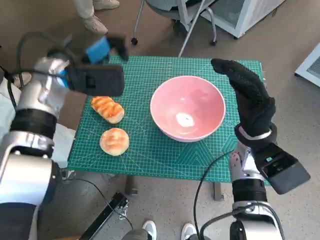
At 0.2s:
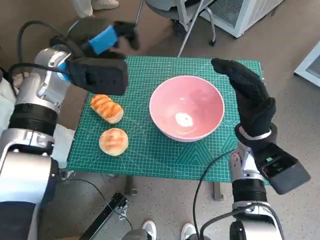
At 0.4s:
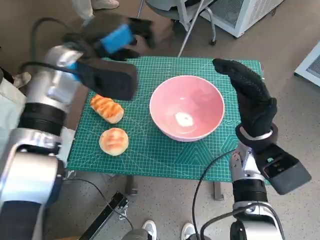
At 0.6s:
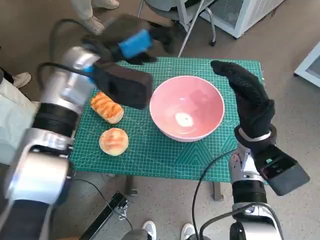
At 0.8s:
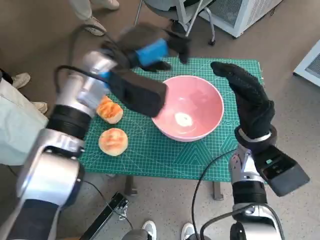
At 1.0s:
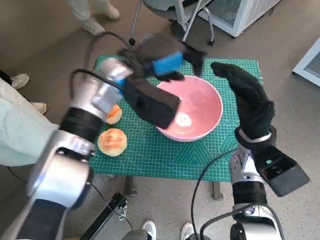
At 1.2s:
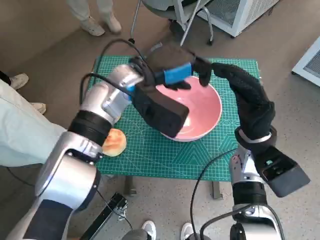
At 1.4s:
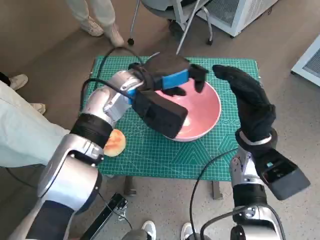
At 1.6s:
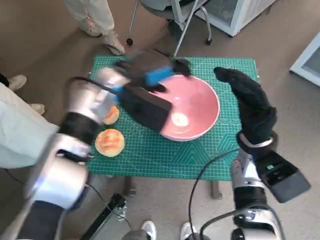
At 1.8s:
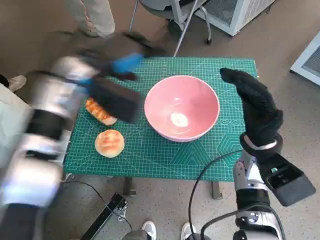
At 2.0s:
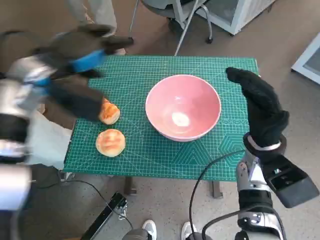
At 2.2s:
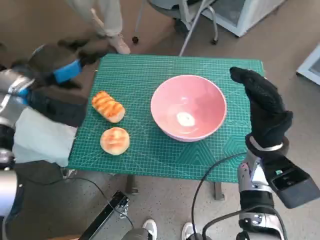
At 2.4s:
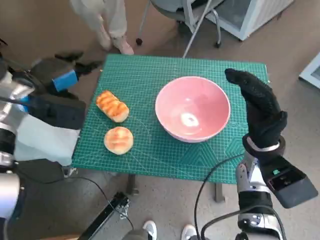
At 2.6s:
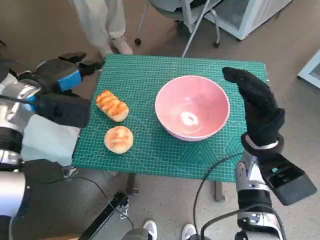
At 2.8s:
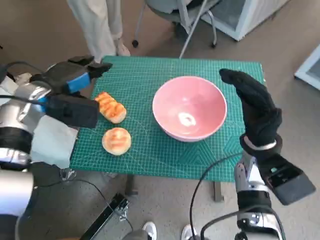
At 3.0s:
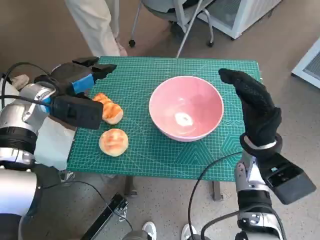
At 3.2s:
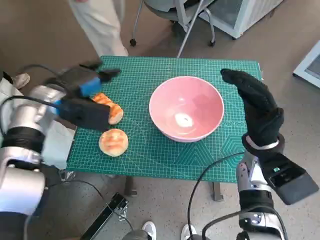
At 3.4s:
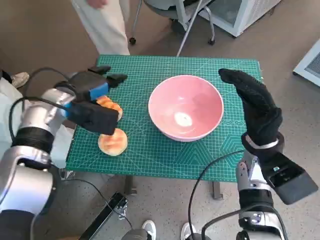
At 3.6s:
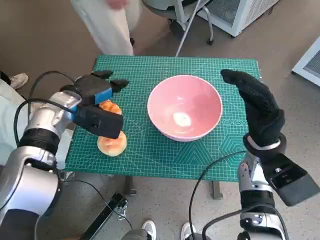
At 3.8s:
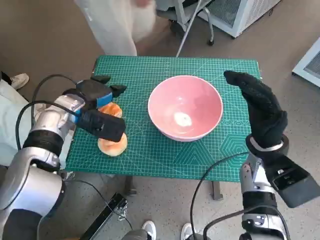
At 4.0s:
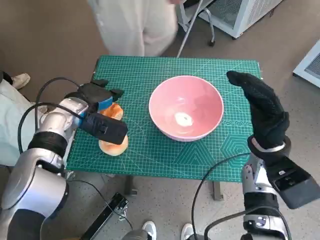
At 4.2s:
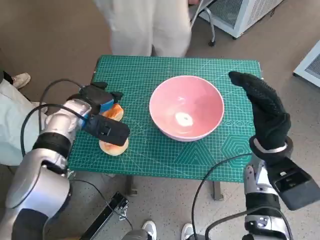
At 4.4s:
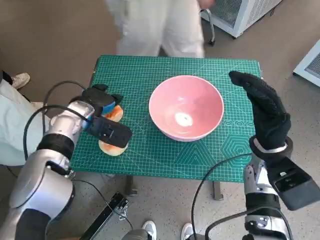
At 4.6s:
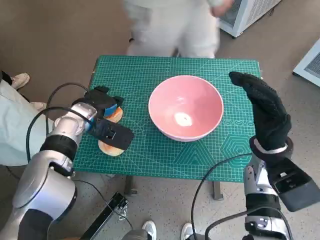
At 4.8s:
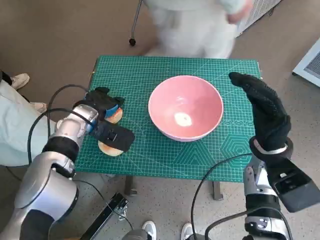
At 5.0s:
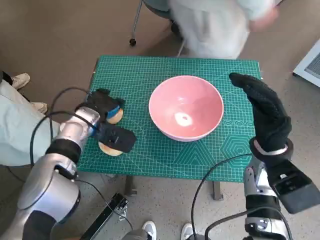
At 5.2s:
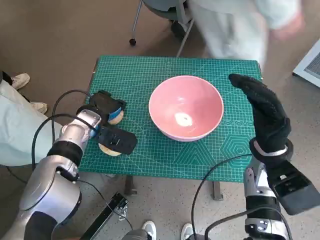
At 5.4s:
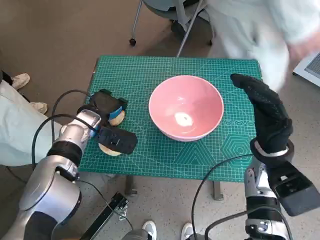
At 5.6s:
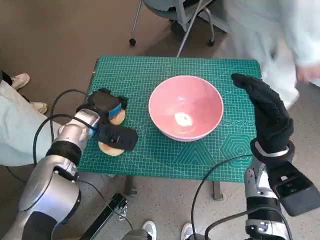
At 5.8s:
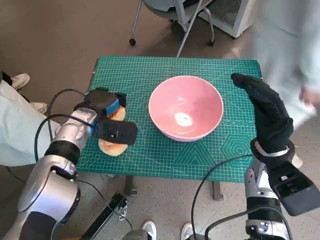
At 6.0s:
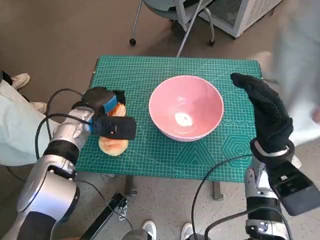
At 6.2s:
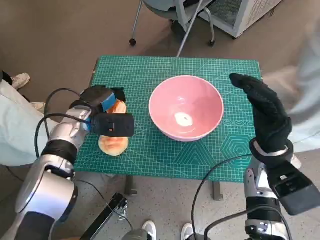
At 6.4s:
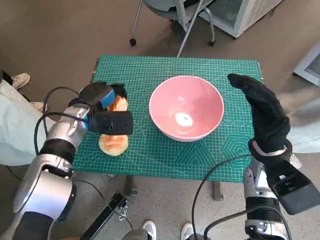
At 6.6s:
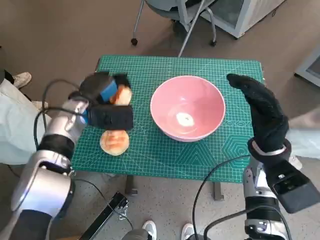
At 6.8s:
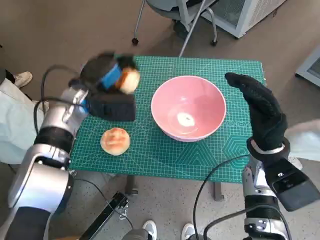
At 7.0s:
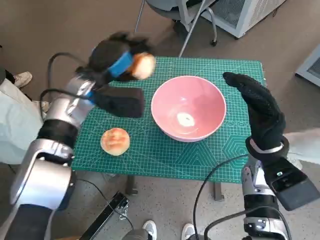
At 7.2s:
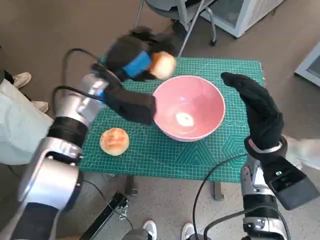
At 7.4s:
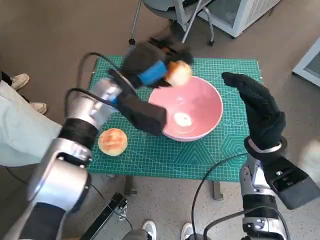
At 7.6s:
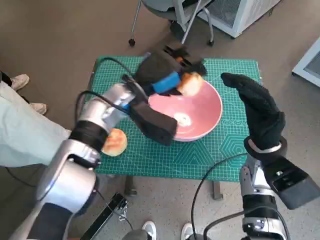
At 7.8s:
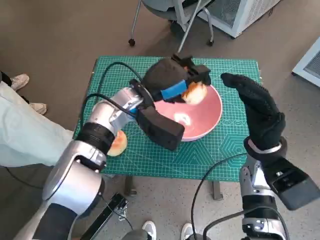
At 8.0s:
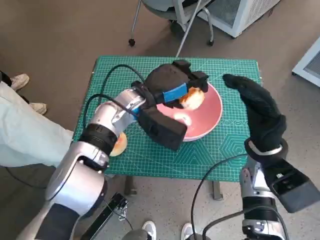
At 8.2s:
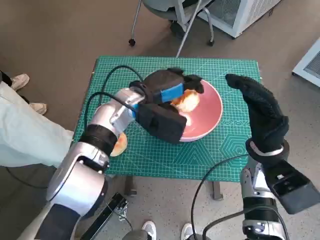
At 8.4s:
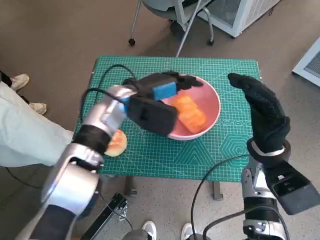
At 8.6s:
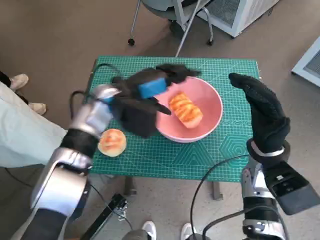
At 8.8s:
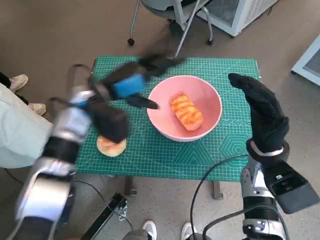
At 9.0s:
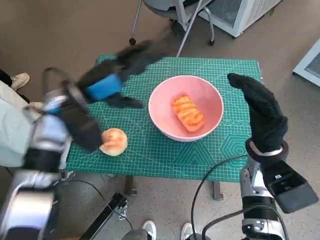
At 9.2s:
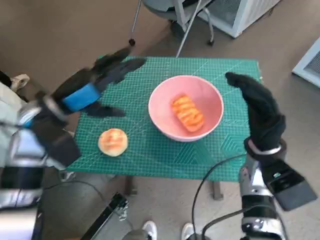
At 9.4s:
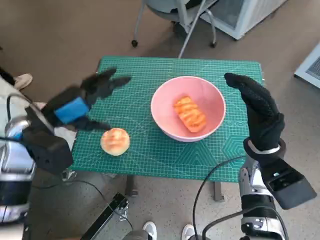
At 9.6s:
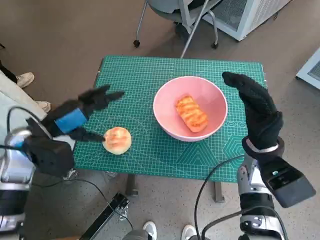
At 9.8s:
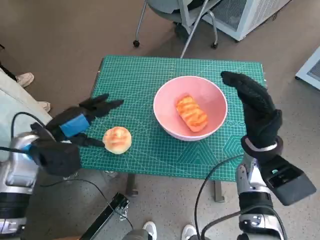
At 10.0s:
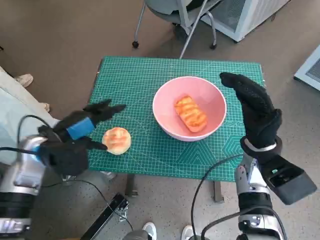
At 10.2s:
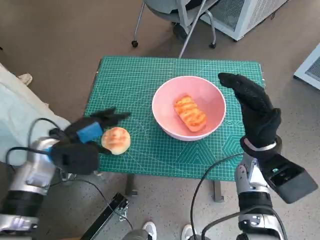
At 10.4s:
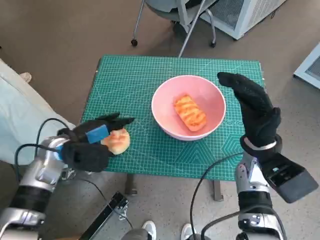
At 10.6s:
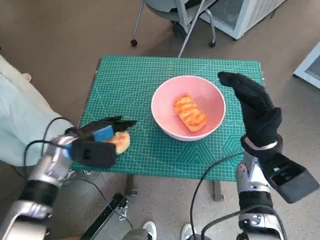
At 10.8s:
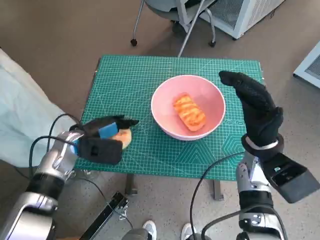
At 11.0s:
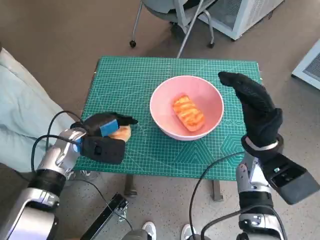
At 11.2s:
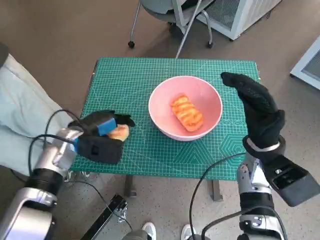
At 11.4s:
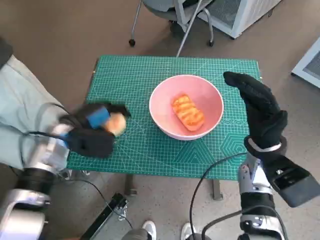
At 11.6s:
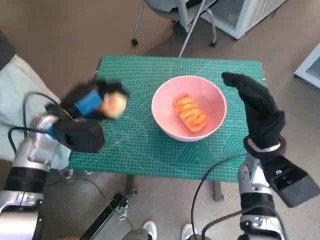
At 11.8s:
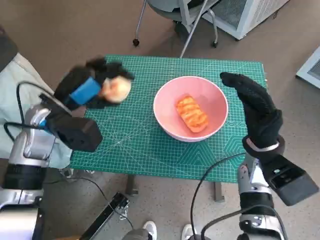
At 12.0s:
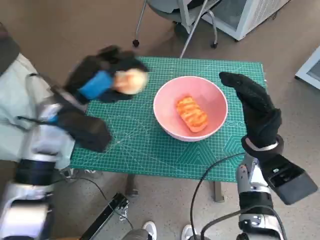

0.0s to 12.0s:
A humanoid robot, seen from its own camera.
Task of the whole recording: Push the bowl to the center of the table and put the bread into the bowl.
Step, 0.0s to 5.2s: Grasp the long bread with left hand.
Step, 5.4s to 8.4s: Place the long bread in pink bowl with left hand.
Step, 8.6s to 10.8s: Grasp the round bread with left hand.
0.0s to 1.6s: The left hand travels to the right by about 10 cm.
1.6s to 3.0s: The left hand shifts roughly 15 cm to the left.
3.0s to 4.4s: The left hand travels downward by approximately 5 cm.
6.0s to 7.6s: The left hand moves to the right and upward, about 15 cm.
7.6s to 9.0s: The left hand travels to the left by approximately 10 cm.
9.0s to 10.4s: The left hand travels downward and to the left by approximately 10 cm.
10.4s to 12.0s: The left hand moves upward, roughly 10 cm.

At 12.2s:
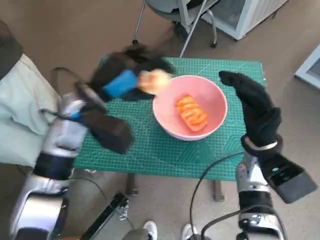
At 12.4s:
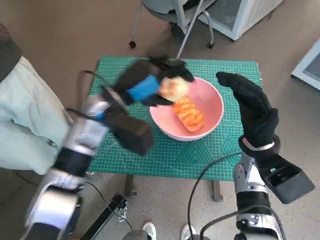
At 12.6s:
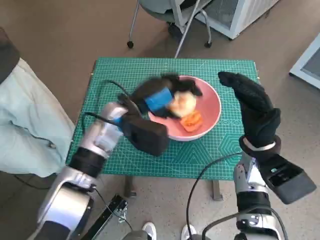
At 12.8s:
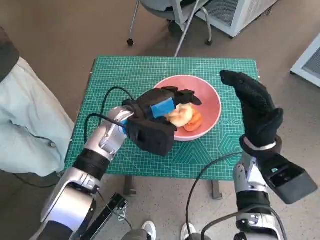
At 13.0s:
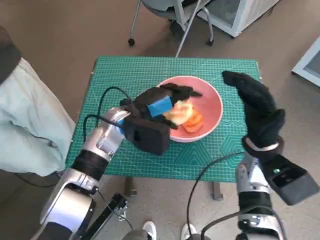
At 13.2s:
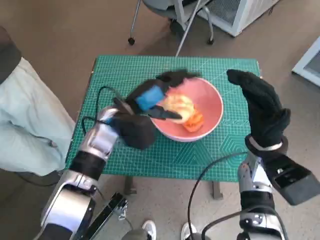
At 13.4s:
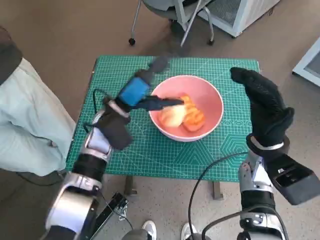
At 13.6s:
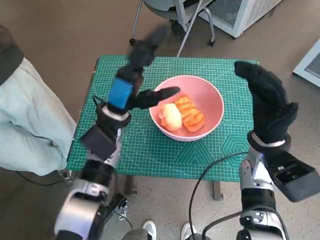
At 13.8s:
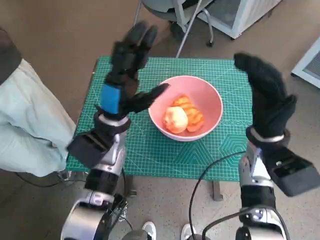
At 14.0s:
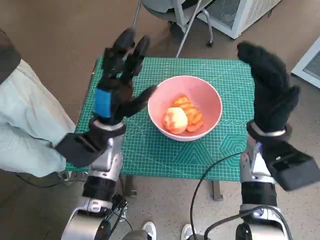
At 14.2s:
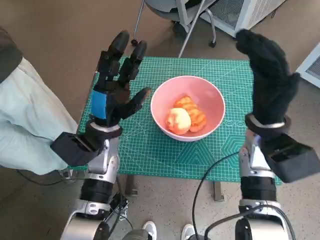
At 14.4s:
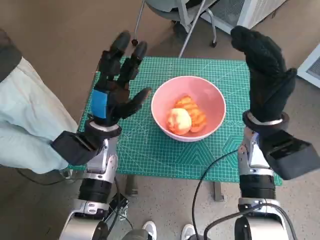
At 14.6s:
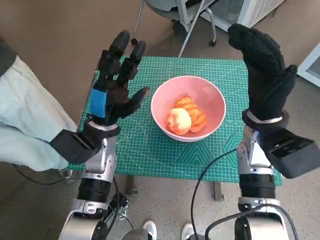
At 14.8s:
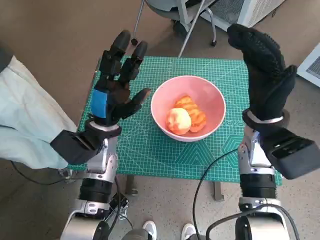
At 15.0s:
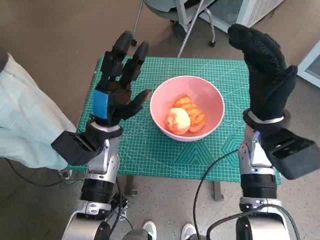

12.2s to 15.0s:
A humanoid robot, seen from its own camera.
Task of the whole recording: Push the bowl to the center of the table and put the bread into the bowl.
12.2s to 13.6s: The left hand travels downward by about 5 cm.
13.6s to 15.0s: The right hand shifts by some 5 cm.

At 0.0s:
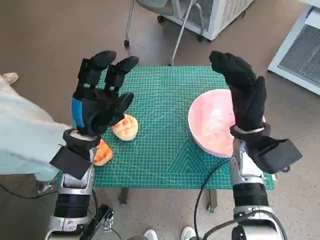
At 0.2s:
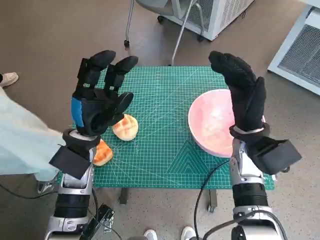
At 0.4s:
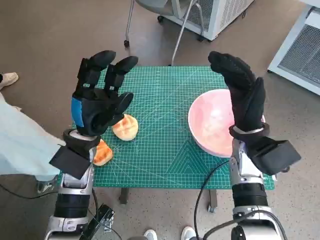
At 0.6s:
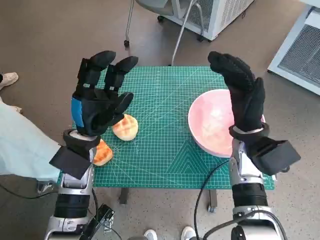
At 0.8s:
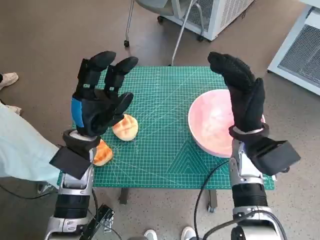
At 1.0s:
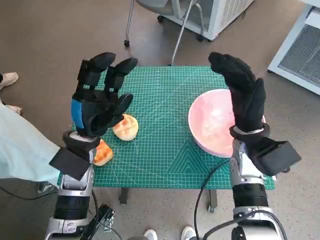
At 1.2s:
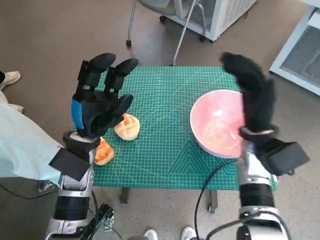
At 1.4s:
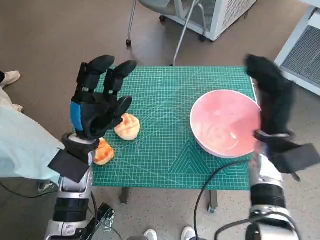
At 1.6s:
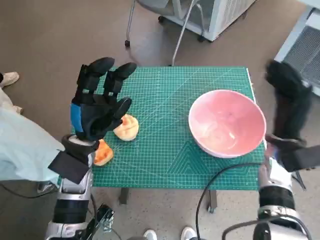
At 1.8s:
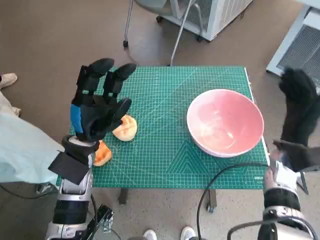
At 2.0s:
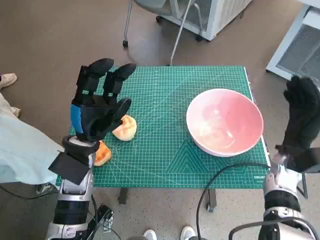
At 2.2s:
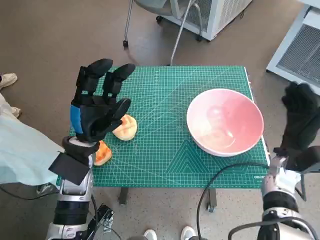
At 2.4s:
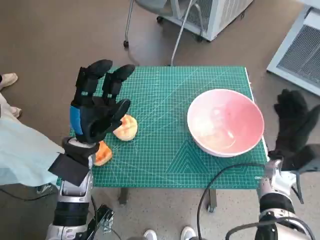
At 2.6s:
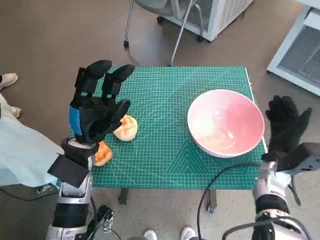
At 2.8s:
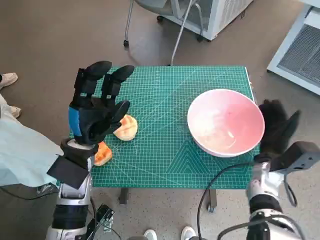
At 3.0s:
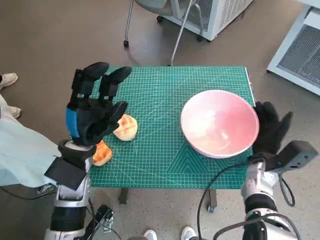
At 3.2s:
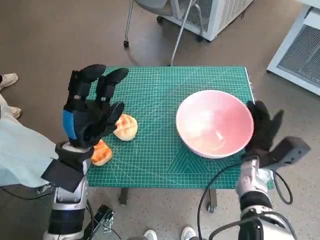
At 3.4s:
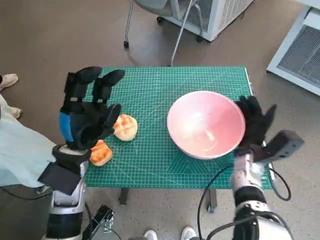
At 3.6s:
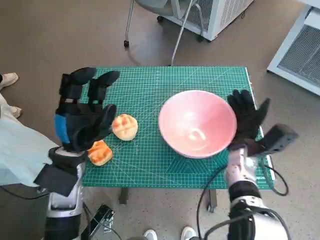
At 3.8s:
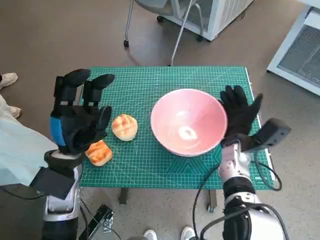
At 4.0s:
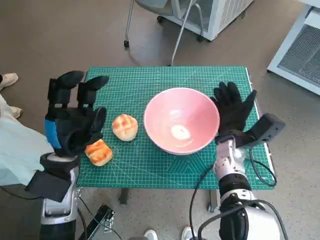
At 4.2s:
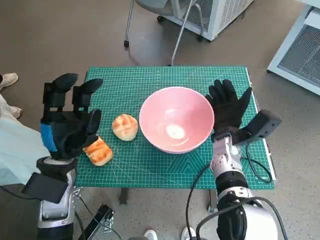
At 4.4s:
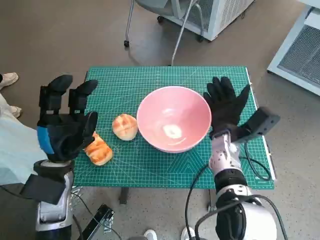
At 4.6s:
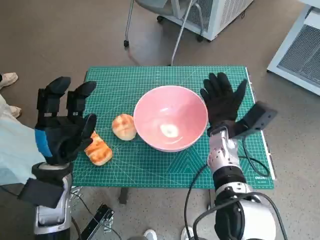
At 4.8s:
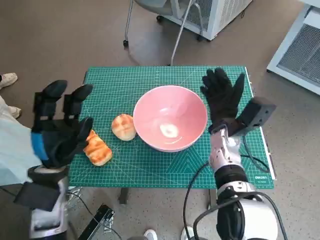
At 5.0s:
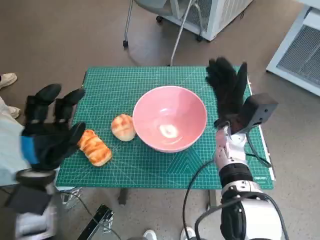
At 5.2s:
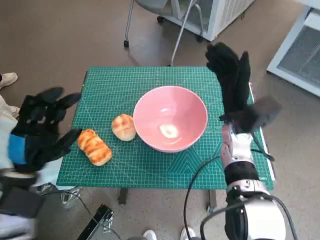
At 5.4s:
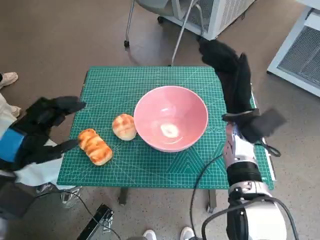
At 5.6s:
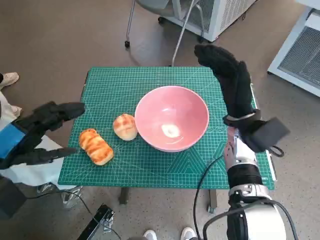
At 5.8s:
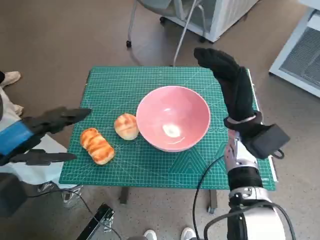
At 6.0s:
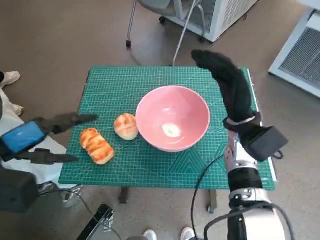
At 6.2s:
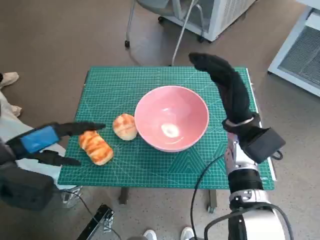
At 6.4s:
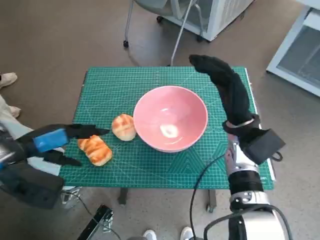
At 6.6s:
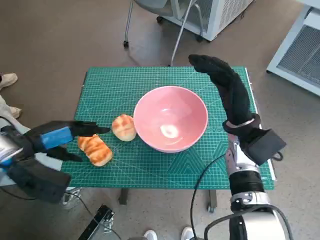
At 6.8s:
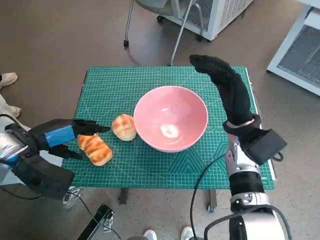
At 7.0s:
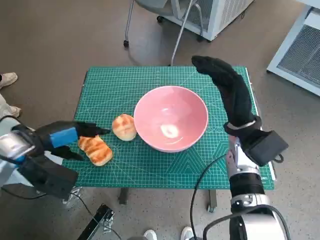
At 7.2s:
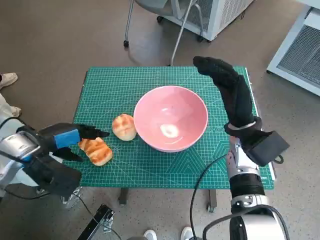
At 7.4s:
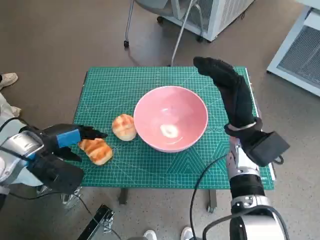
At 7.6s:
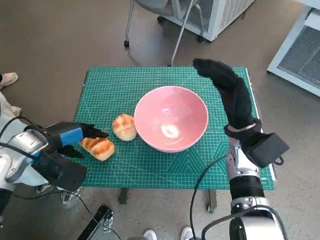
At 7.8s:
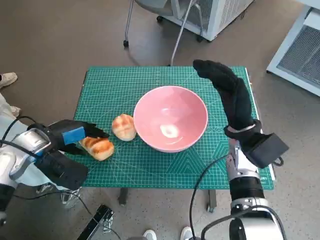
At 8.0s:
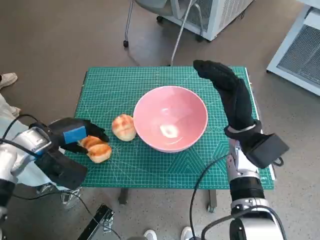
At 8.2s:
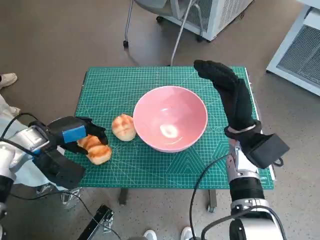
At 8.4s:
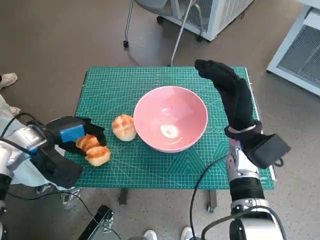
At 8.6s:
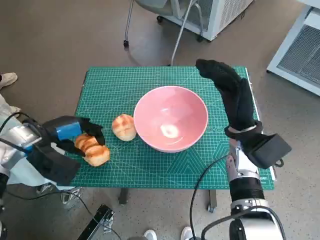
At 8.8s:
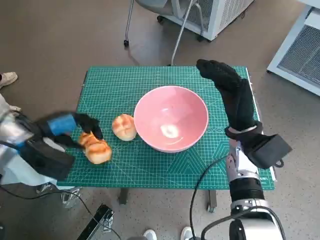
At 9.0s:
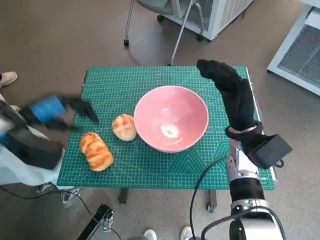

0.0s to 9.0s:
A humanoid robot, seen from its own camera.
Task of the whole recording: Push the bowl to the center of the table and put the bread into the bowl.
Step, 0.0s to 4.8s: Move the pink bowl to the center of table with right hand.
Step, 5.0s to 7.8s: Grasp the long bread with left hand.
1.6s to 3.0s: The right hand goes roughly 10 cm downward.
3.0s to 4.4s: The right hand travels to the left by about 10 cm.
4.4s to 6.0s: The left hand moves upward and to the left, approximately 15 cm. The right hand heads upward, covering roughly 5 cm.
6.0s to 7.6s: The left hand heads forward and downward, covering about 10 cm.
7.6s to 9.0s: The left hand ends up some 5 cm from where it was.
